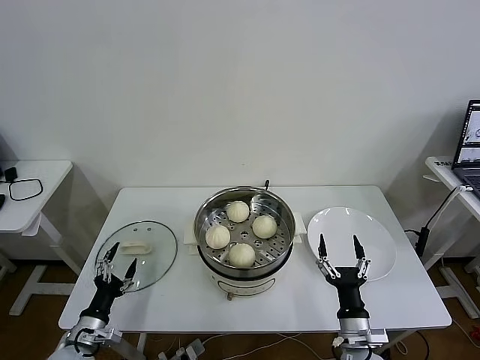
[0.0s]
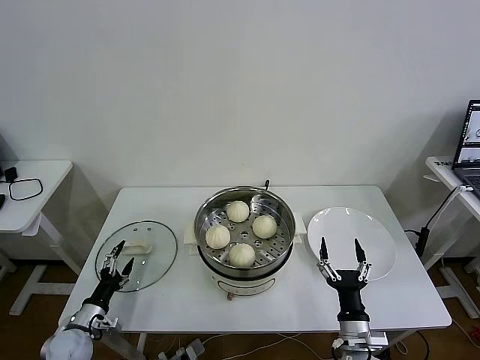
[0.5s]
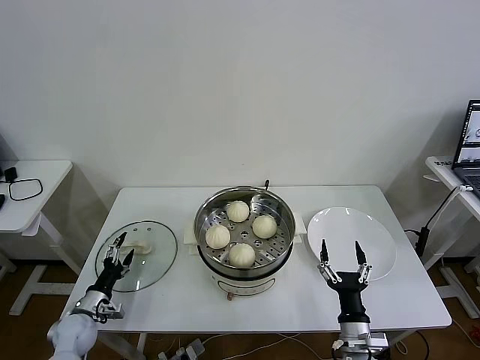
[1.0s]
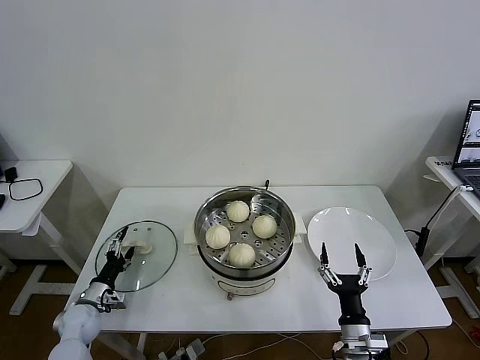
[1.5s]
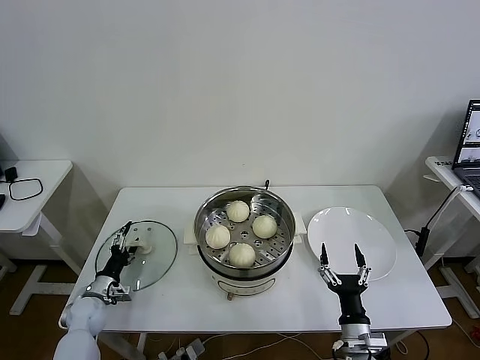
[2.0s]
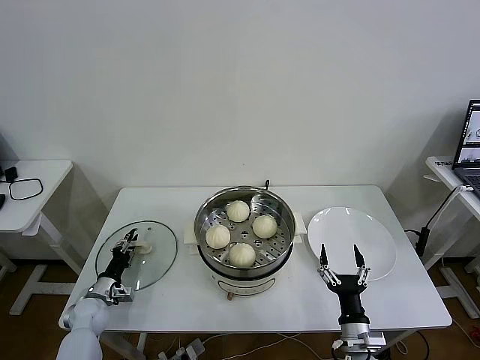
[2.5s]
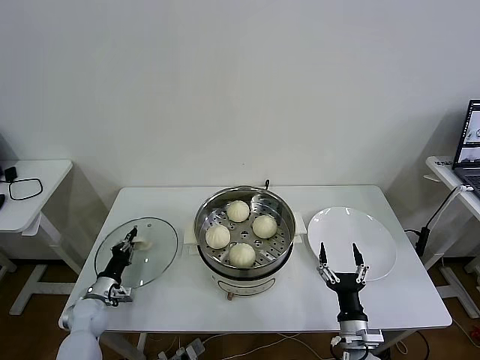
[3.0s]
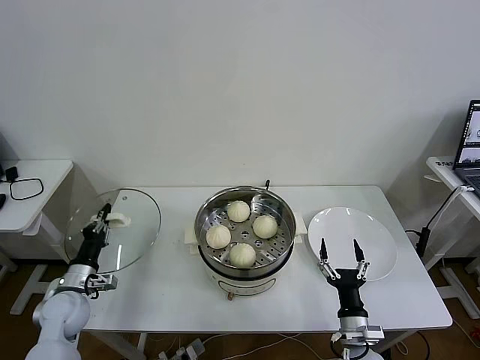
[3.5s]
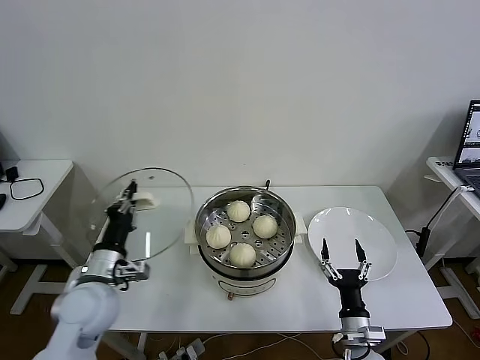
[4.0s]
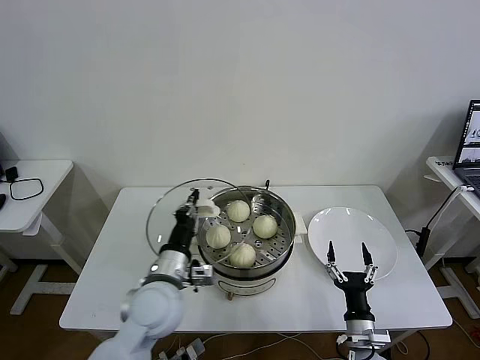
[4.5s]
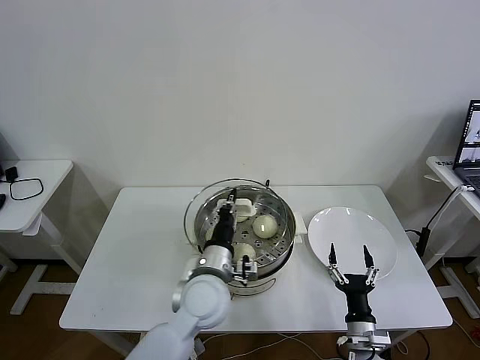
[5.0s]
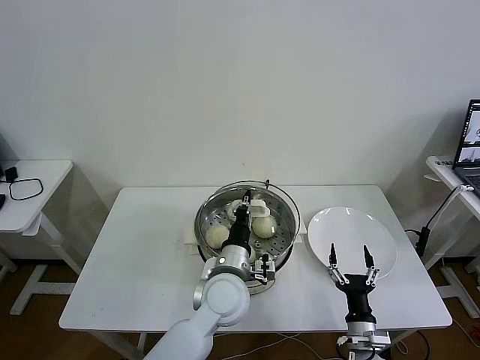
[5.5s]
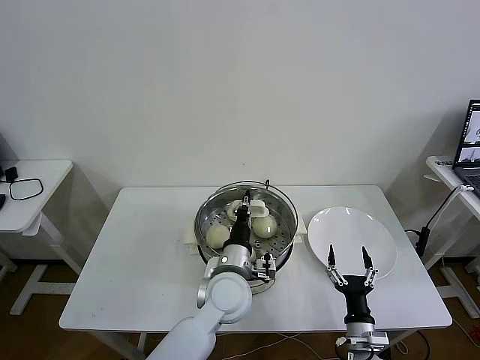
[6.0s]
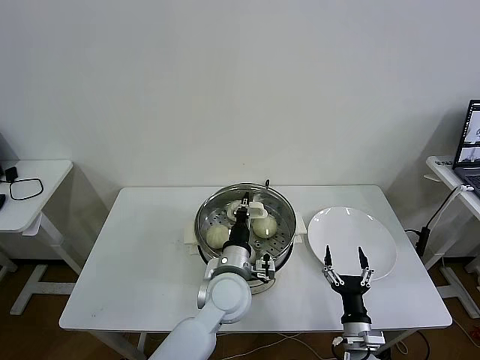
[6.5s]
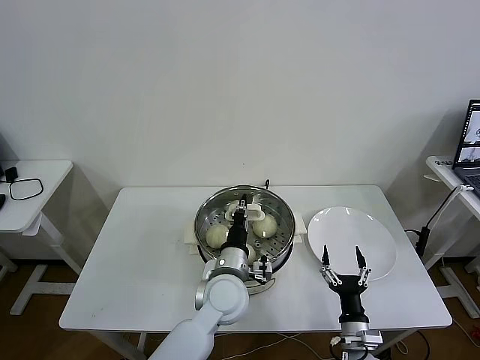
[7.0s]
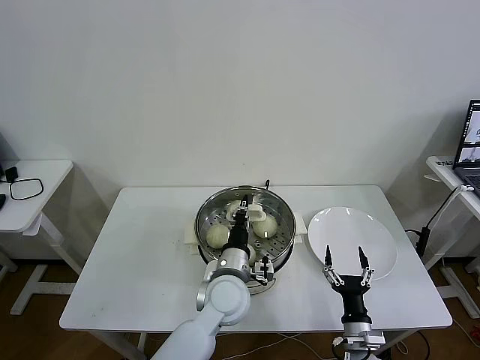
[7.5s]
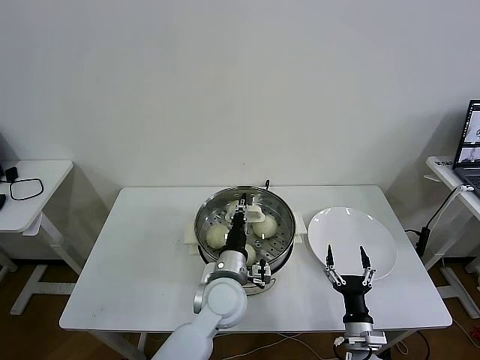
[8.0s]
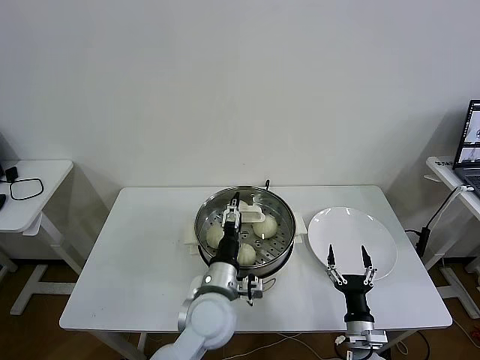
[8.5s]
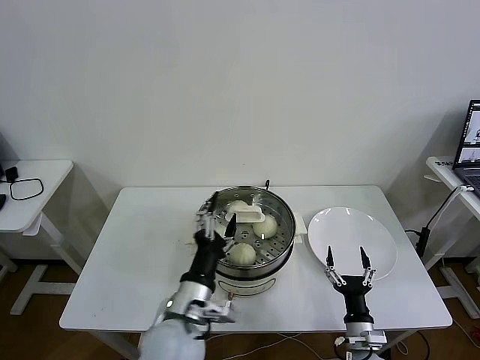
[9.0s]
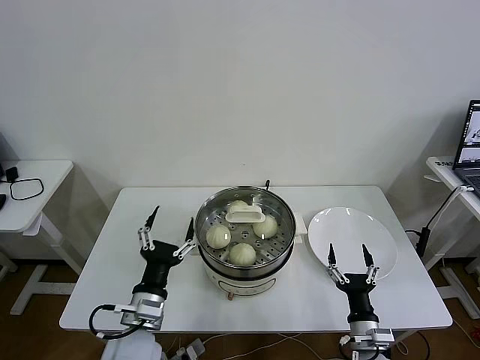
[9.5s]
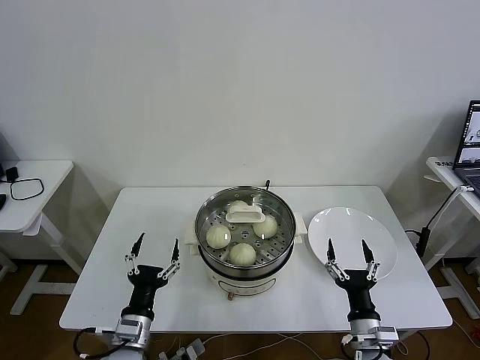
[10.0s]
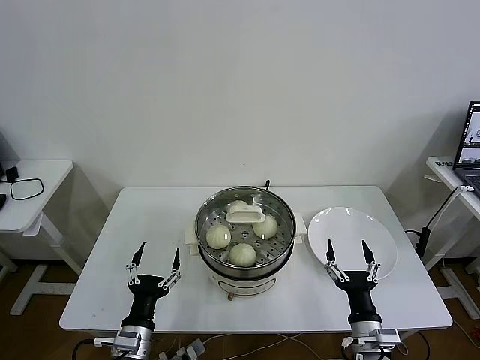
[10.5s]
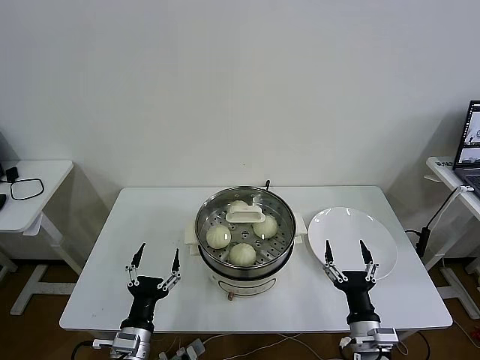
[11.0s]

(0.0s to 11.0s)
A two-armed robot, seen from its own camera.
Task of the whole recording: take steamed baozi put them in steamer then cover it.
Step, 0.0s - 3.0s: Grasp the pot lid with left gripper.
Step, 3.5s - 8.0s: Place the pot lid on the steamer with left gripper.
0.0s - 2.0s: The left gripper heads forward, covering some 10 cm.
2.0s - 3.5s: The left gripper travels upward by some 10 cm, and closes its fingers.
3.5s - 5.5s: The left gripper shifts about 35 cm to the right.
5.5s - 7.5s: There are only small adjustments of the grippers.
7.5s - 9.0s: The left gripper heads backward and to the left, covering about 10 cm, and opens its fingers.
9.0s - 11.0s: The left gripper is displaced to the left and downward by some 15 cm. The right gripper goes about 10 cm upward.

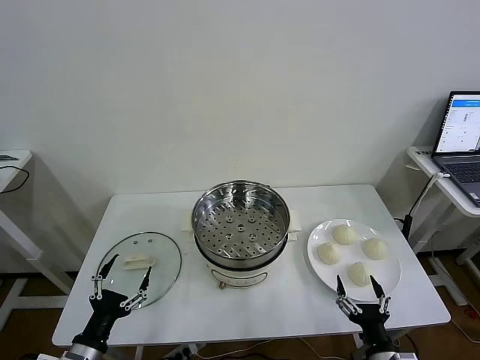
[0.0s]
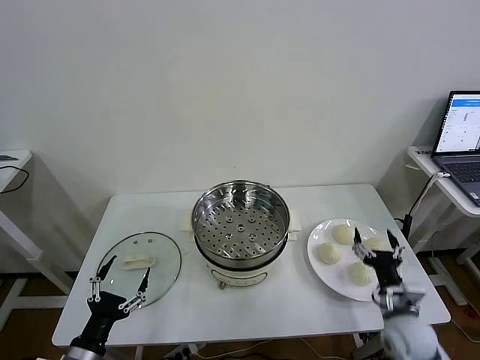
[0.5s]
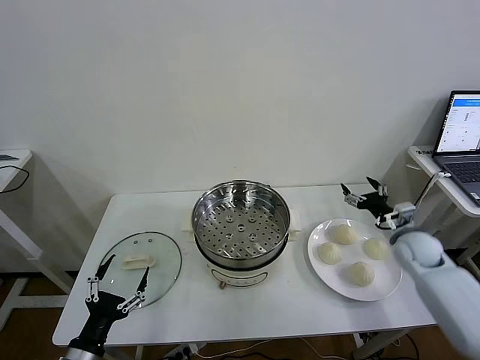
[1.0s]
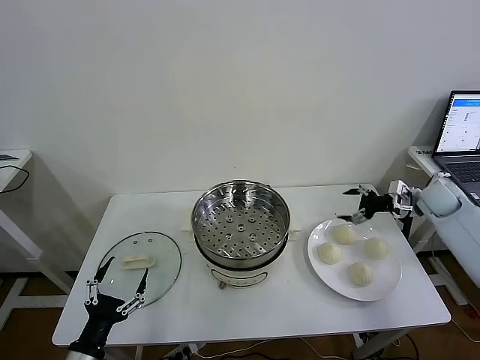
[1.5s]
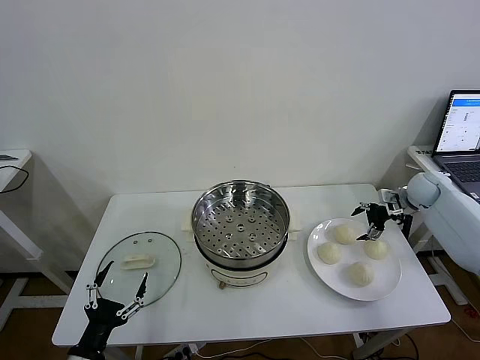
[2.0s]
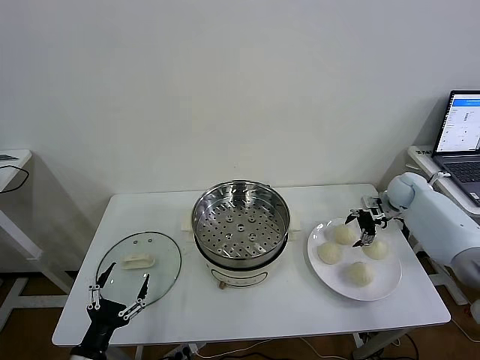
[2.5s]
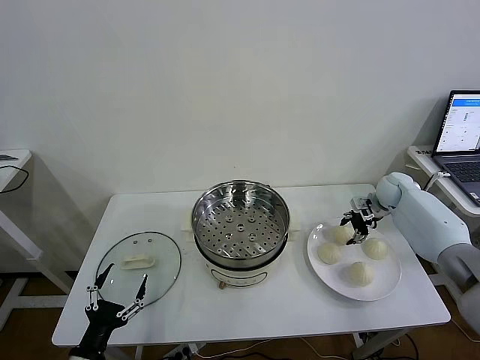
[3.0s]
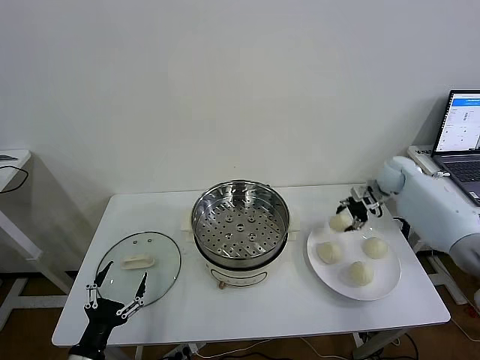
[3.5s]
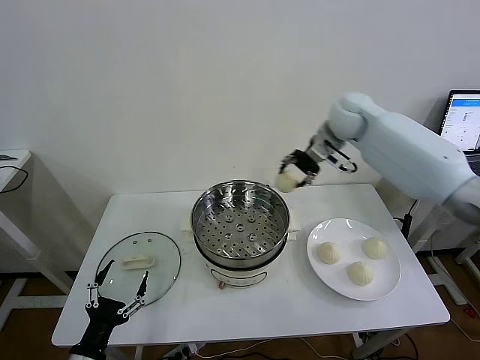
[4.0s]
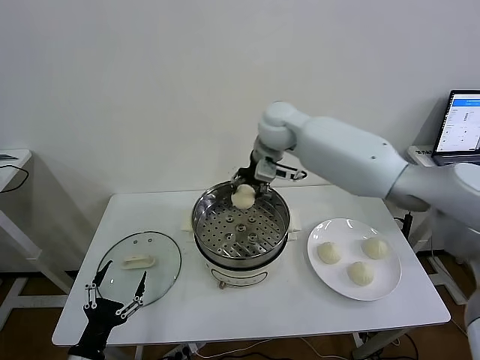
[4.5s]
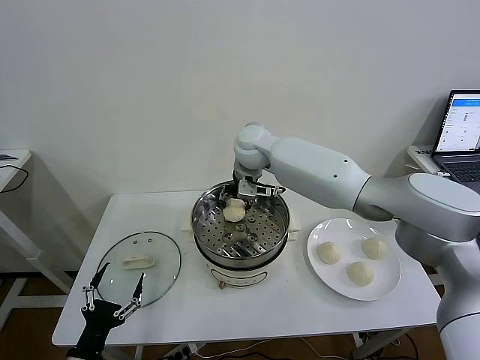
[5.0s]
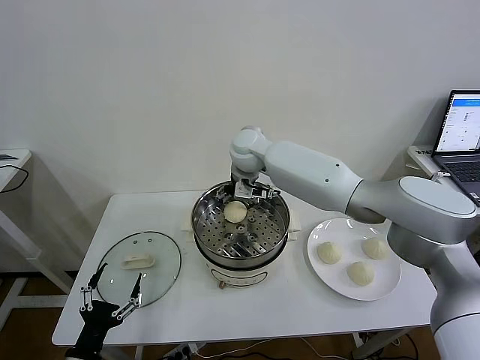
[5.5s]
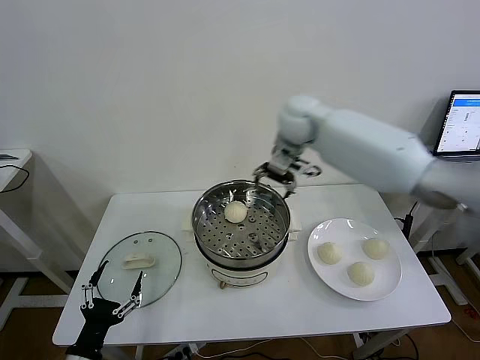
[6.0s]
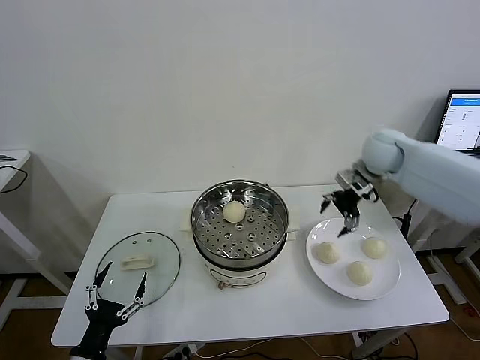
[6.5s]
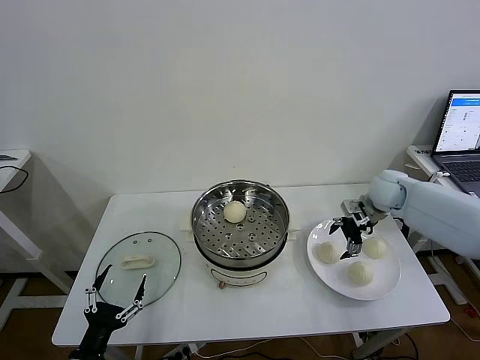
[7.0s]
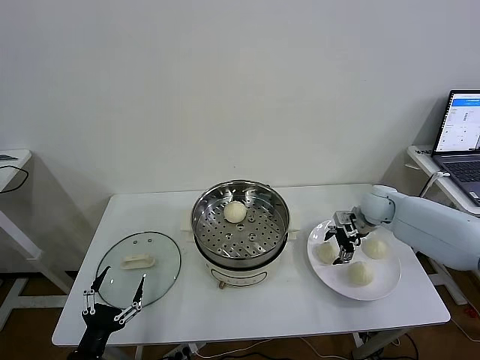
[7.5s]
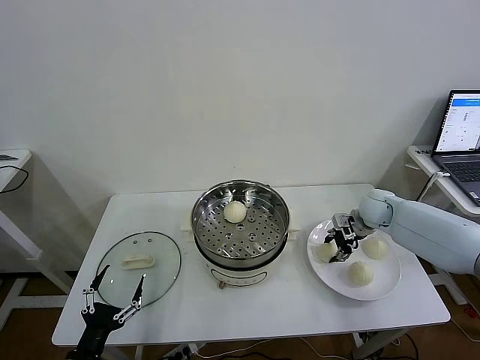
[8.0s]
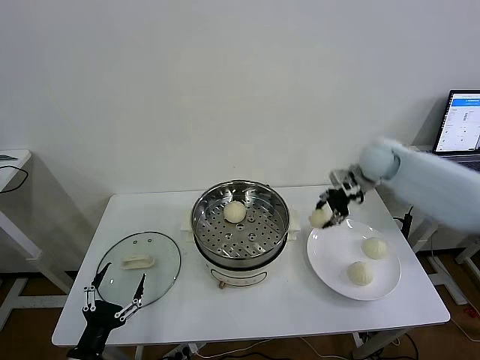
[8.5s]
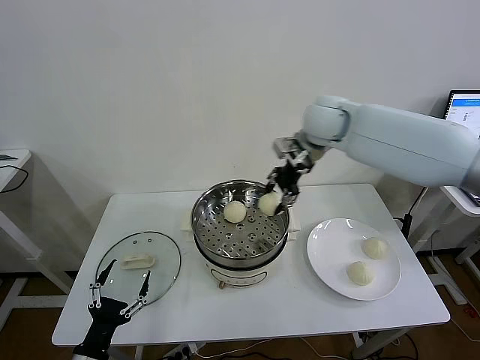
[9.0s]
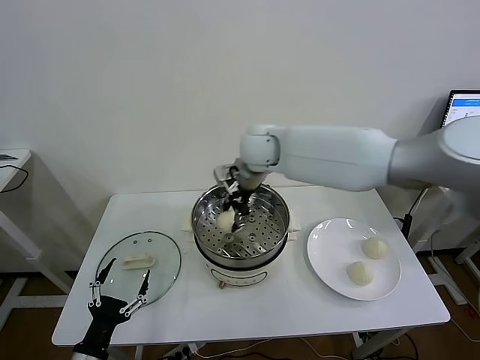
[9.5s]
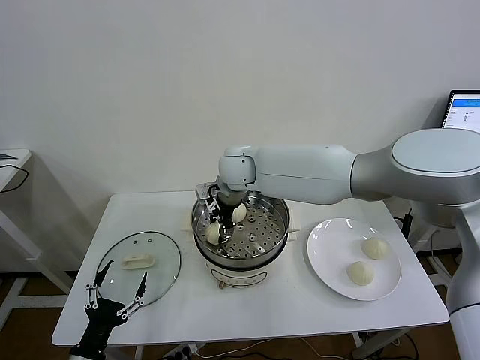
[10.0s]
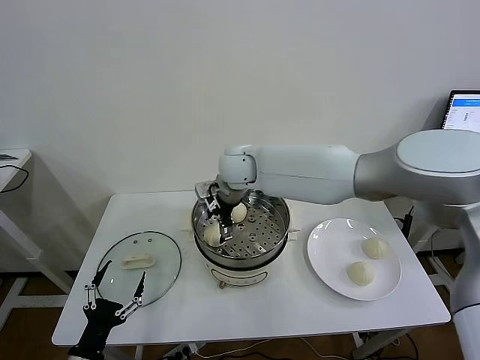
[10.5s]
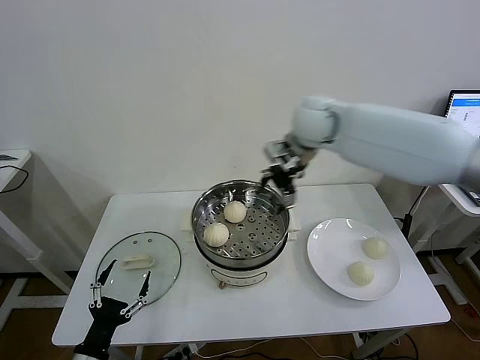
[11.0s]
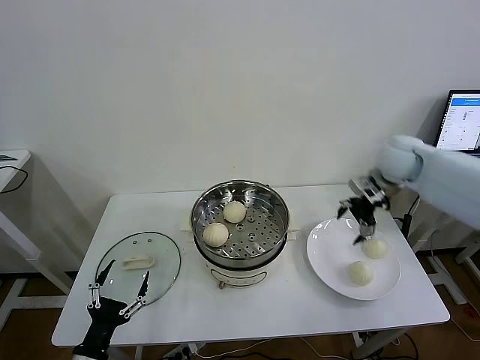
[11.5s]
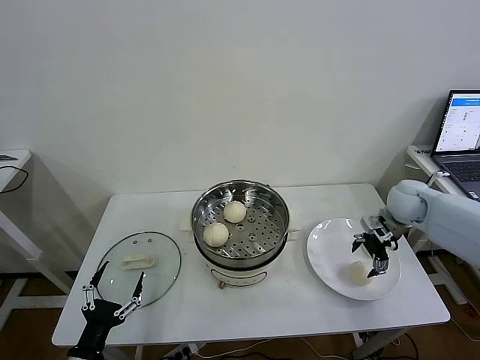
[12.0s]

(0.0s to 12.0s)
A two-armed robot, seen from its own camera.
Task of the whole recording: take steamed baozi put them in steamer then cover it.
Step, 0.0s - 3.0s: Grasp the baozi in the plate with right gripper.
Step, 3.5s - 5.5s: Place the baozi on the steamer with right gripper.
Step, 6.0s - 7.5s: Grasp the baozi in the plate with right gripper.
Step, 8.0s - 10.0s: Place the baozi on the steamer with right gripper.
2.0s - 4.0s: The right gripper heads to the left and upward, covering roughly 35 cm, and closes up.
4.0s - 6.0s: The right gripper goes to the left and returns, about 15 cm each way, and opens up.
6.0s - 8.0s: The right gripper moves downward and to the right, roughly 30 cm, and closes up.
8.0s - 10.0s: The right gripper is displaced to the left by some 35 cm.
10.0s - 12.0s: The right gripper goes approximately 40 cm to the right, and opens.

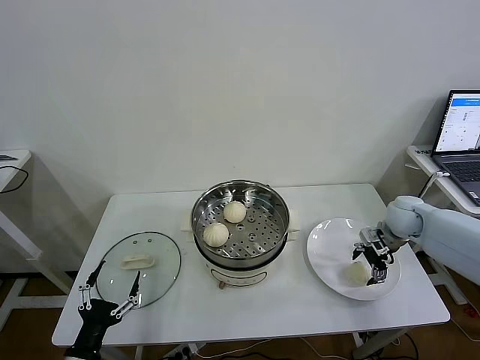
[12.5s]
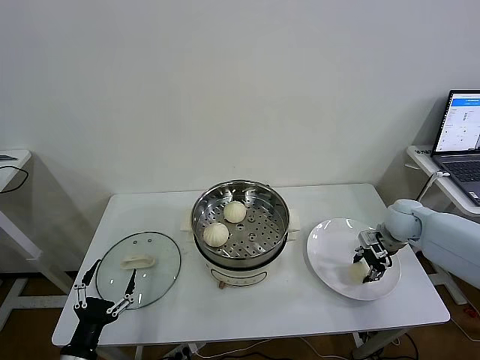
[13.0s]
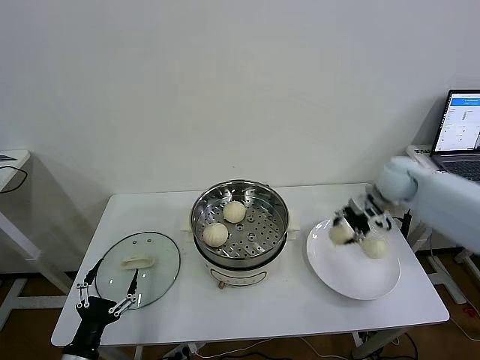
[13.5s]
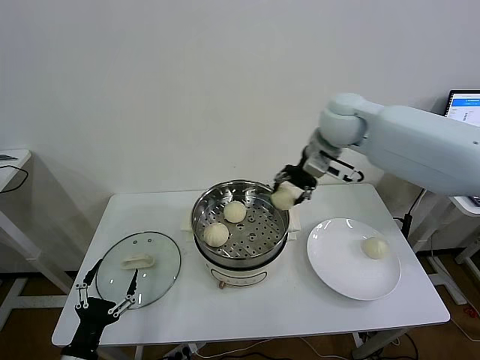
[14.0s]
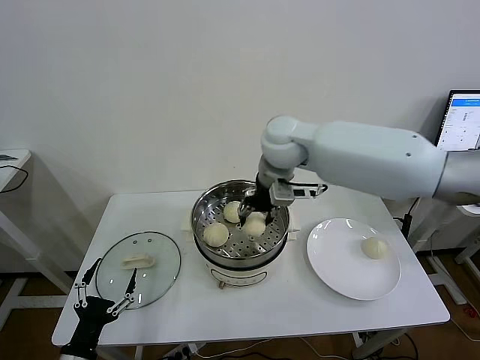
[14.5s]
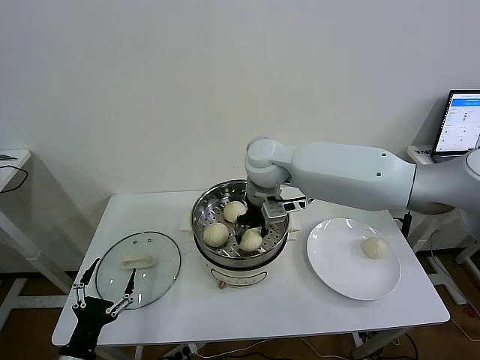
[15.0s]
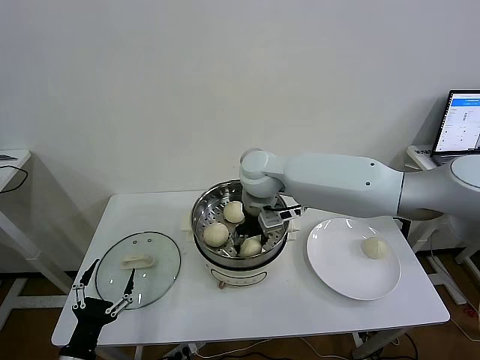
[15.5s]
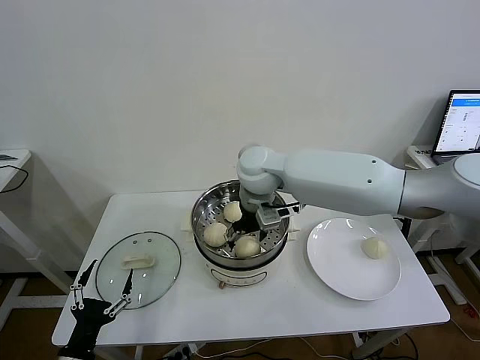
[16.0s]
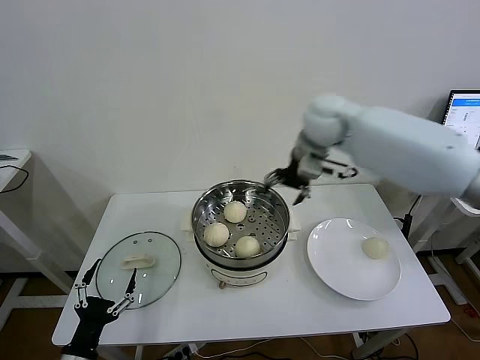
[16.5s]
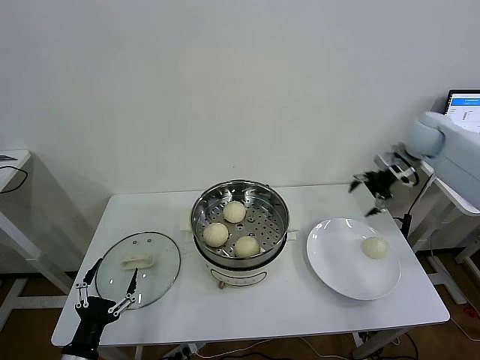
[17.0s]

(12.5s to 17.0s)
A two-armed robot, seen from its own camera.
Task of the whole recording: take steamed baozi put them in steamer then cover it.
Step, 13.0s - 15.5s: Place the baozi on the steamer with right gripper.
12.5s - 14.5s: The right gripper shifts approximately 40 cm to the left and upward, and closes up.
14.5s - 17.0s: The right gripper heads to the right, covering roughly 35 cm, and opens up.
